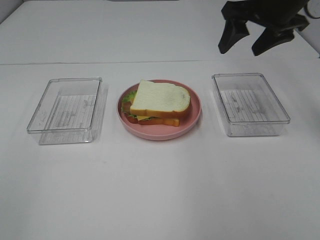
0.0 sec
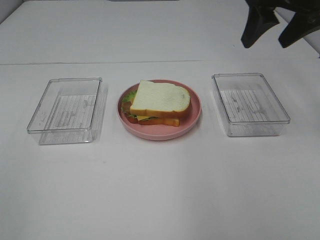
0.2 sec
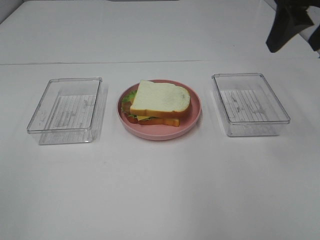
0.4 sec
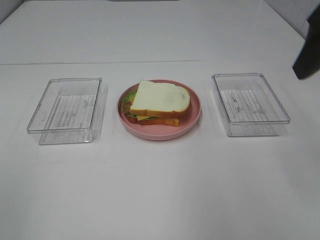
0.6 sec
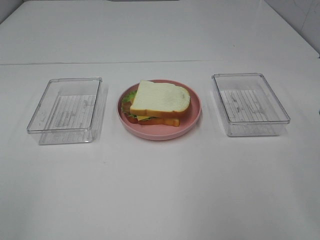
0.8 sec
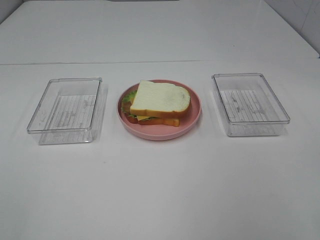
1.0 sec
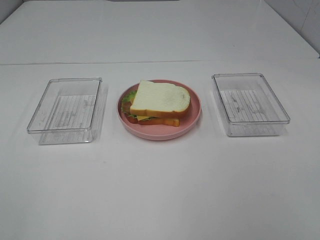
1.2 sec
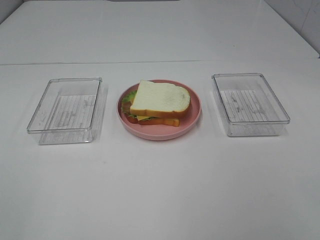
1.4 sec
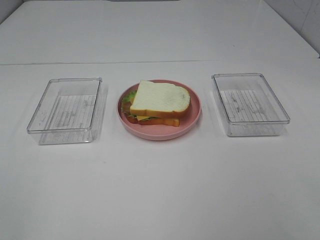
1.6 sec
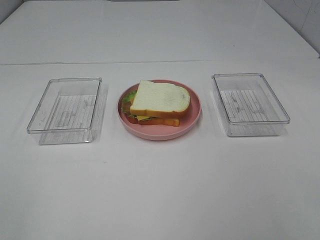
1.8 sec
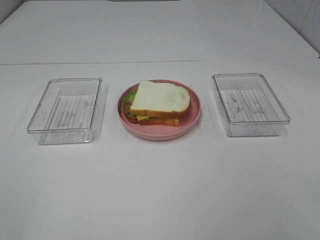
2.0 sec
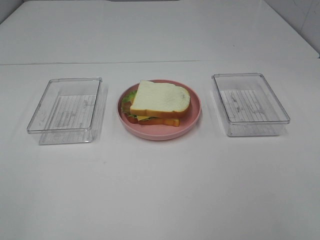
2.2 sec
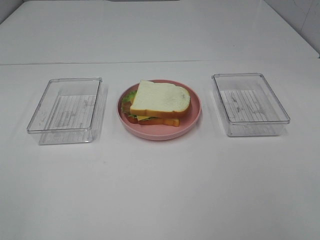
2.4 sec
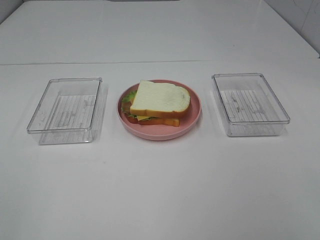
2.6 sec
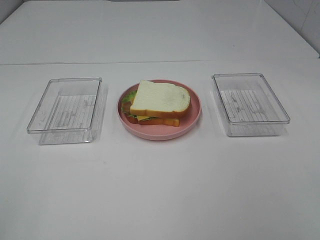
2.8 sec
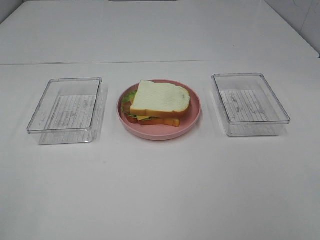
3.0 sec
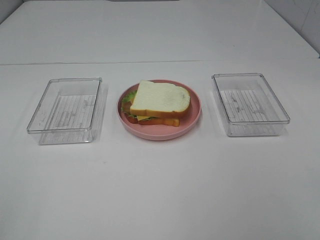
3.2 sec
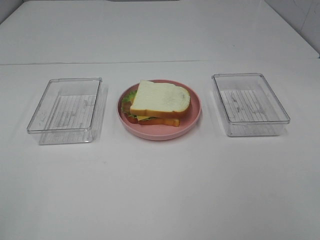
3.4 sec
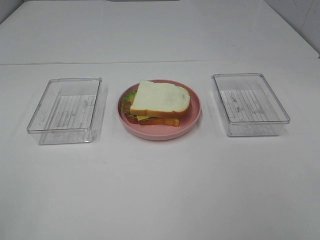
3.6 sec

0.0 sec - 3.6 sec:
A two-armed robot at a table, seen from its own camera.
Task of the whole recording: Make sandwiches.
0.0 sec - 1.8 sec: The right gripper goes about 40 cm backward.

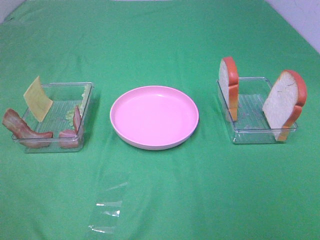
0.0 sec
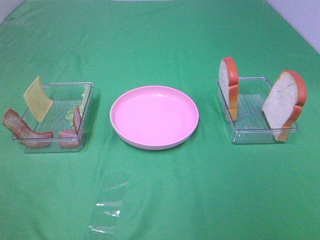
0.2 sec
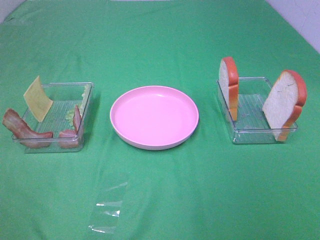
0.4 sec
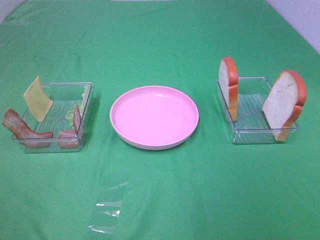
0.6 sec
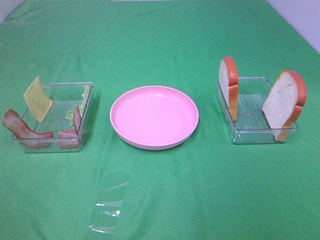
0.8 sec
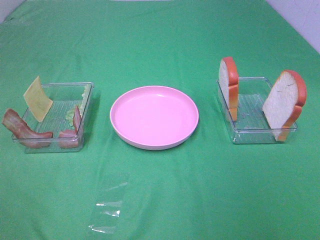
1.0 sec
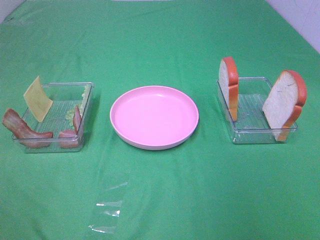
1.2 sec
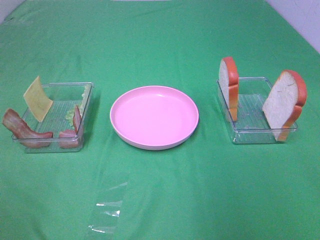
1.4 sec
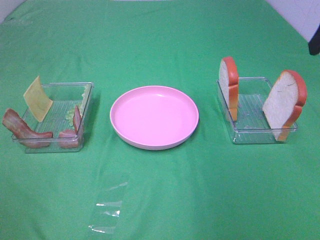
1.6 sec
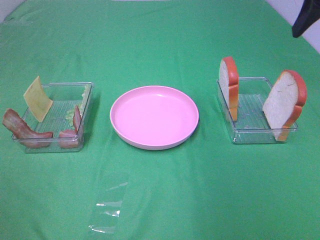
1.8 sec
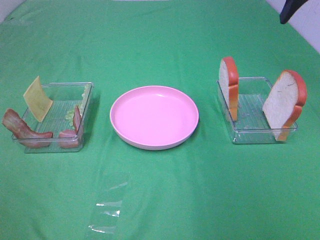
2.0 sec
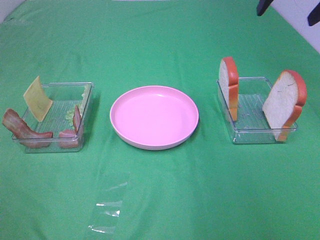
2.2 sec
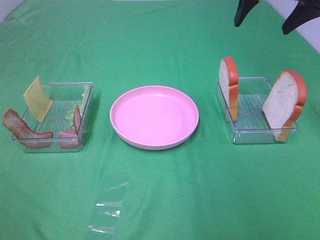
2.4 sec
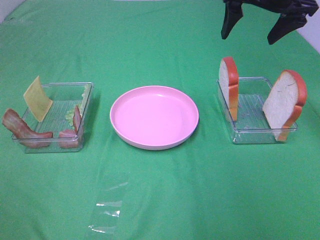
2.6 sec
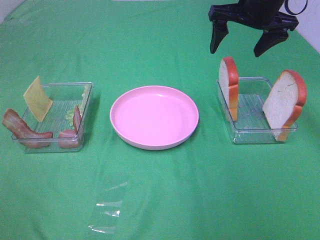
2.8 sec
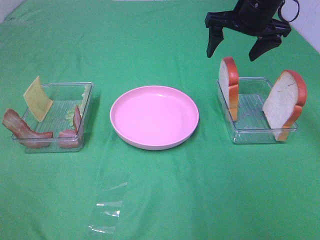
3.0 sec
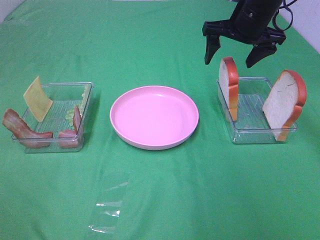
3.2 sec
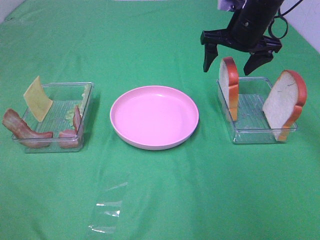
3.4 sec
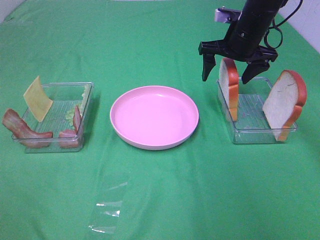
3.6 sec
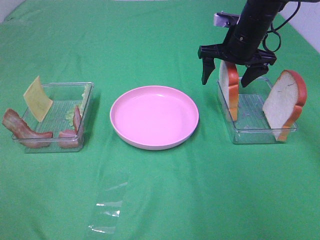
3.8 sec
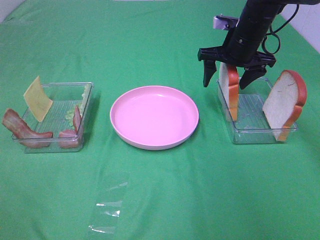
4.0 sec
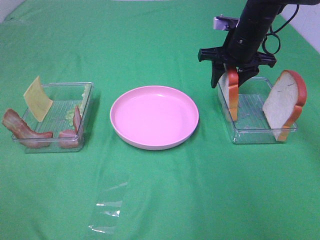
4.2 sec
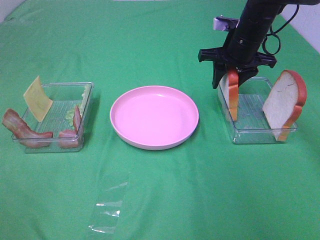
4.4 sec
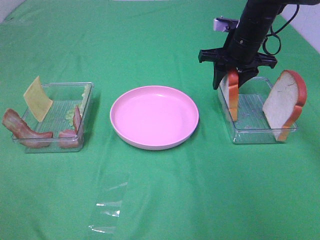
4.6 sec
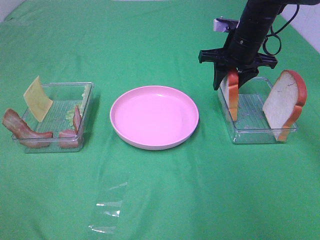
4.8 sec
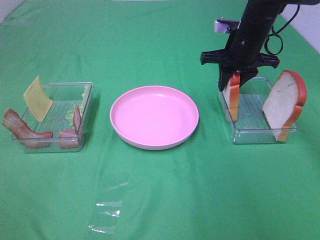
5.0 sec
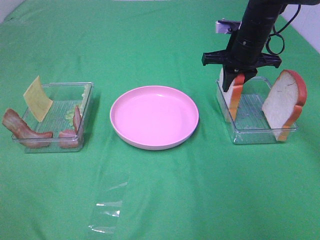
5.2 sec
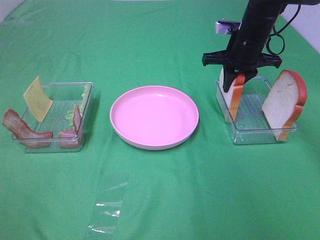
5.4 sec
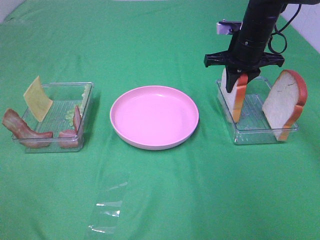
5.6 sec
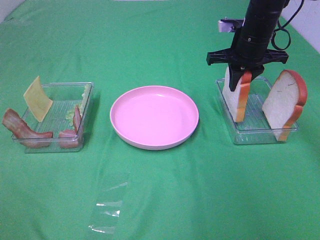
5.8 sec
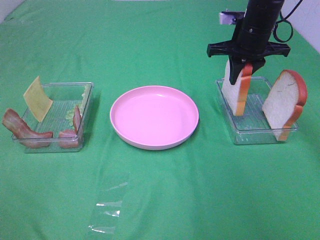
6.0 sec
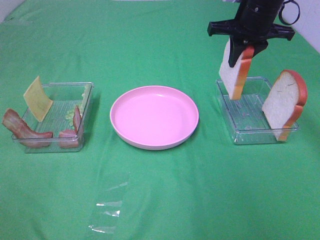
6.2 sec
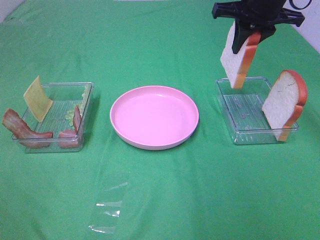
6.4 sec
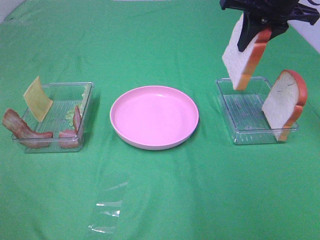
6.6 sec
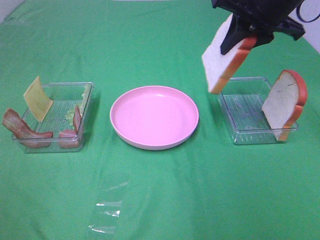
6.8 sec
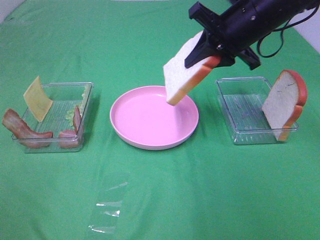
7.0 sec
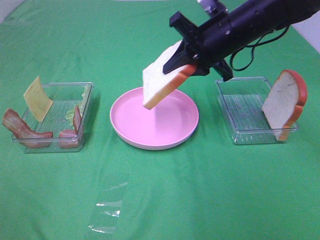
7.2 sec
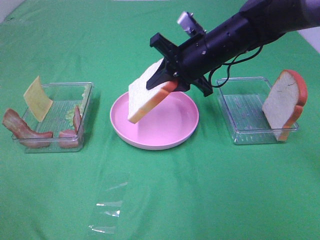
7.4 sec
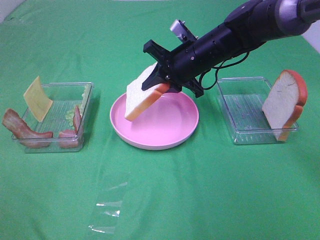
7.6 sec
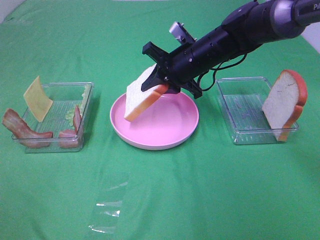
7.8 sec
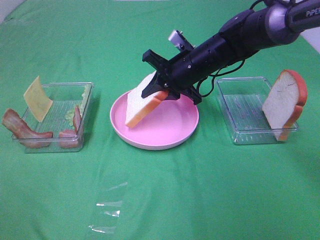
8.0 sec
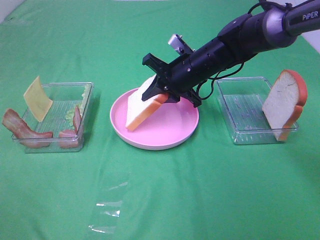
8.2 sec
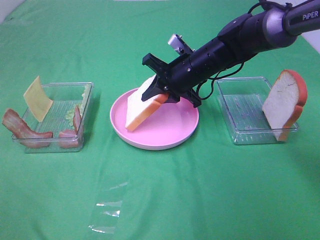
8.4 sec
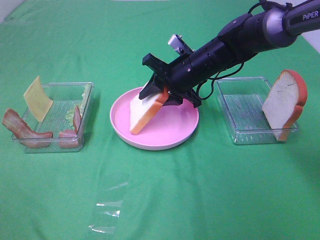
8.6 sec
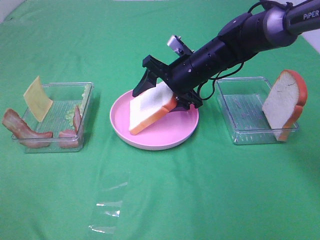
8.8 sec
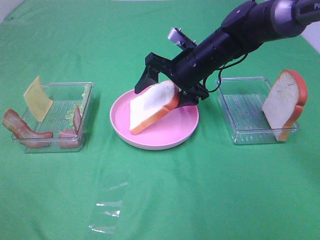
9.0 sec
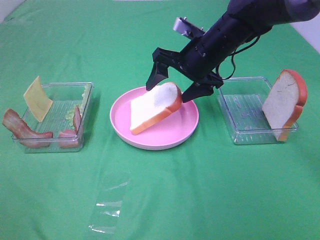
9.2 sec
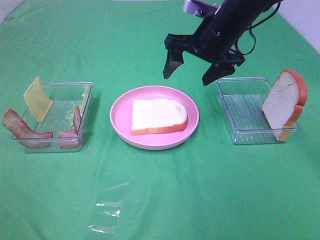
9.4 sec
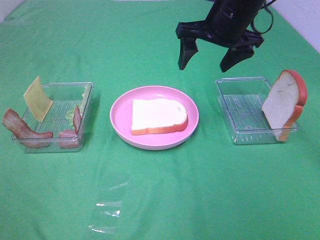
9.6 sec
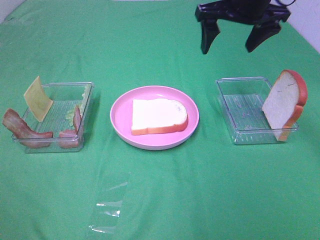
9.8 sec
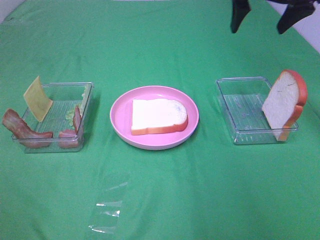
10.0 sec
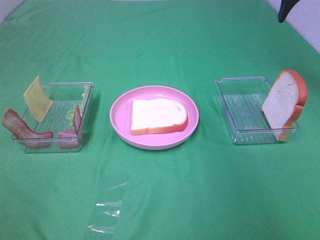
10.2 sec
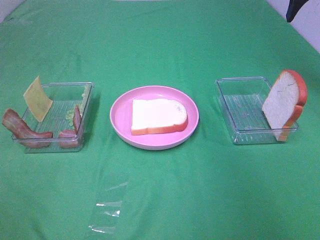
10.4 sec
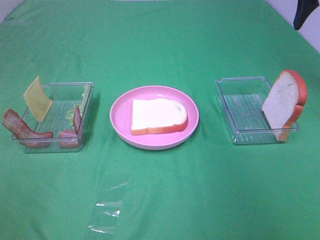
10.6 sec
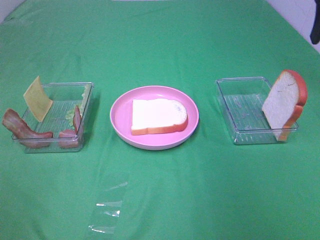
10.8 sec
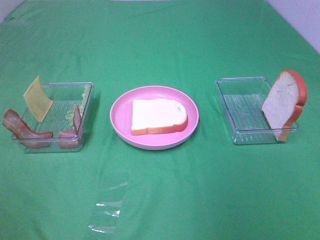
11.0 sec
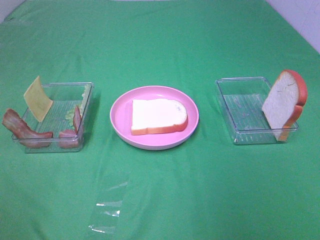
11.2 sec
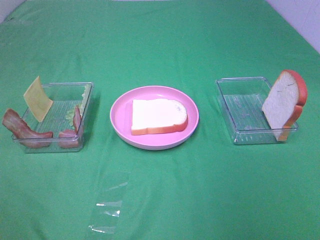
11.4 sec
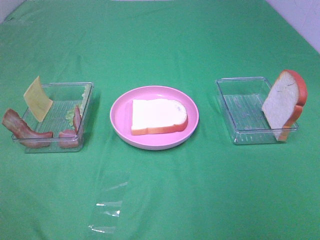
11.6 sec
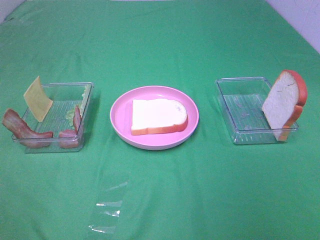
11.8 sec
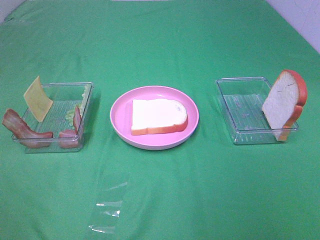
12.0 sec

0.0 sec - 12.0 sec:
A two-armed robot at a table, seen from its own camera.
Task of the whole recording: Make sandwiches.
Step, 0.0 sec - 5.4 sec: Right hand:grab the bread slice.
Step, 5.6 sec - 9.2 sec: Right hand:place the bread slice on the plate.
1.6 sec - 3.0 sec: The right gripper is displaced forward, downward and to the left by about 25 cm.
3.0 sec - 4.4 sec: The right gripper is displaced downward by approximately 5 cm, and closes.
4.4 sec - 6.0 sec: The right gripper closes its fingers.
6.0 sec - 7.6 sec: The right gripper moves to the left, some 10 cm, and moves approximately 10 cm upward and comes back.
7.6 sec - 9.0 sec: The right gripper opens.
9.0 sec - 10.4 sec: The right gripper goes approximately 30 cm to the right and upward.

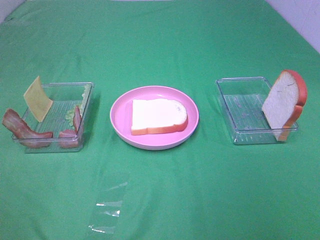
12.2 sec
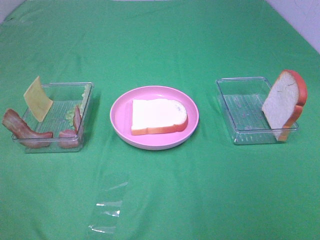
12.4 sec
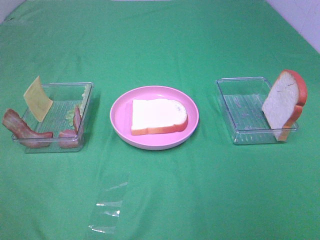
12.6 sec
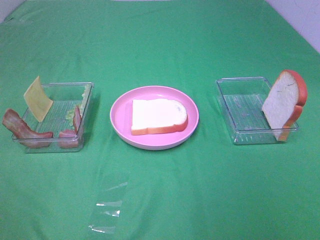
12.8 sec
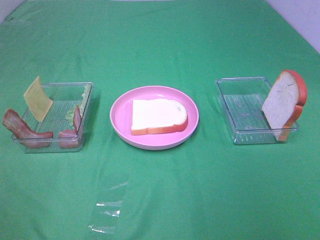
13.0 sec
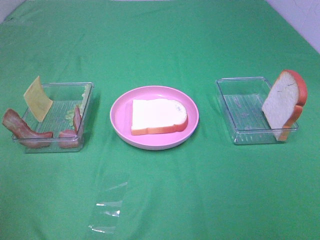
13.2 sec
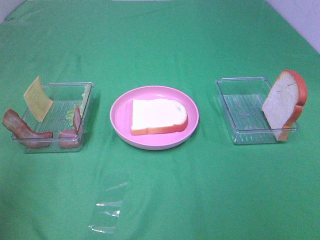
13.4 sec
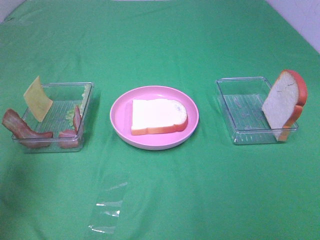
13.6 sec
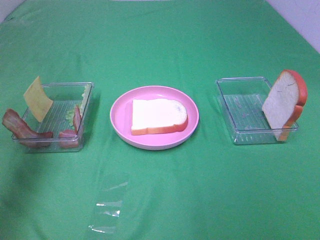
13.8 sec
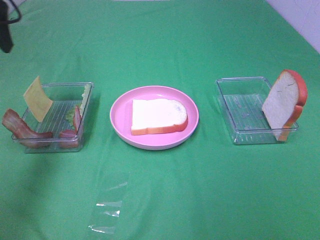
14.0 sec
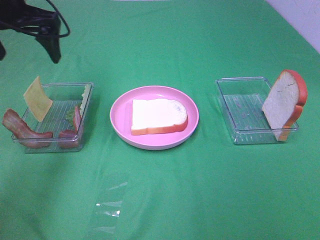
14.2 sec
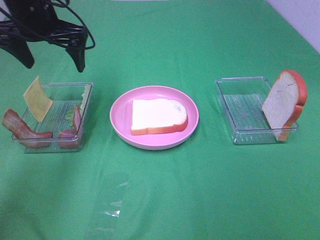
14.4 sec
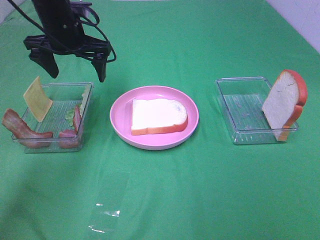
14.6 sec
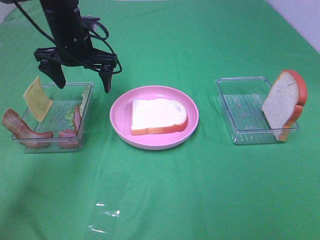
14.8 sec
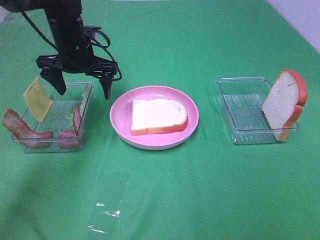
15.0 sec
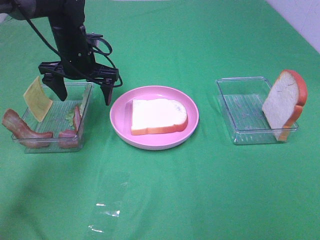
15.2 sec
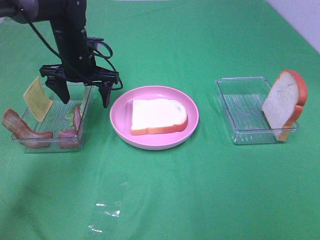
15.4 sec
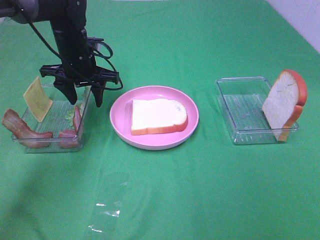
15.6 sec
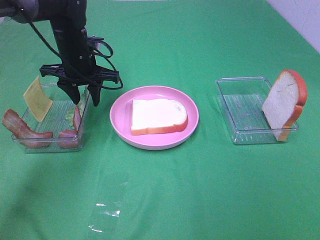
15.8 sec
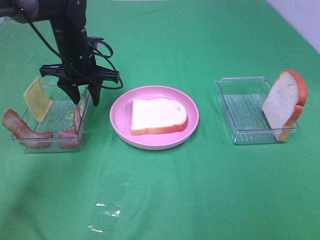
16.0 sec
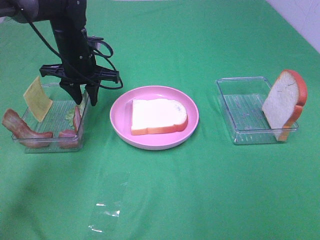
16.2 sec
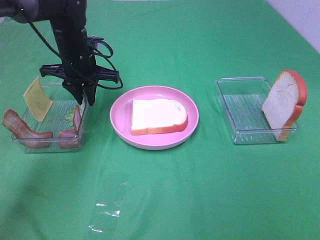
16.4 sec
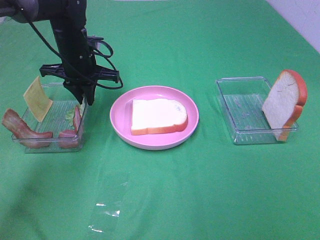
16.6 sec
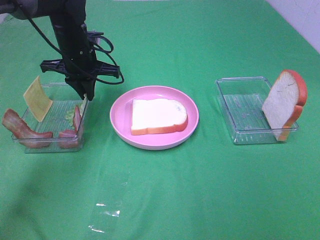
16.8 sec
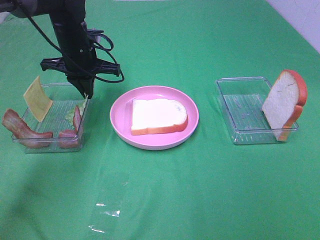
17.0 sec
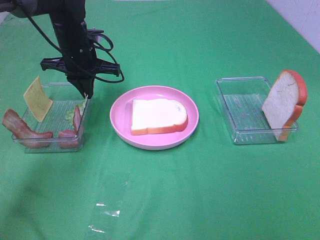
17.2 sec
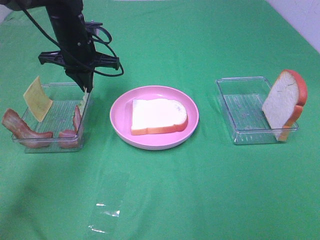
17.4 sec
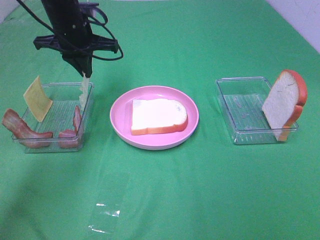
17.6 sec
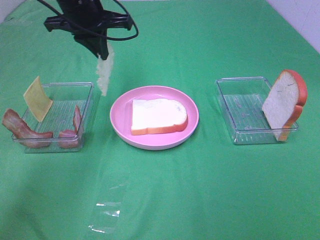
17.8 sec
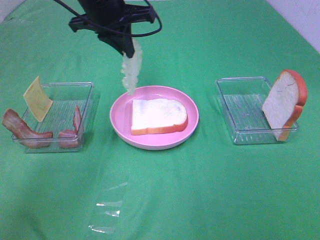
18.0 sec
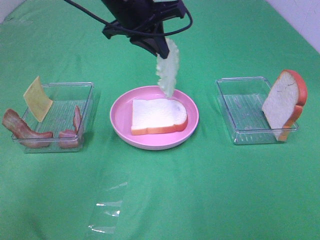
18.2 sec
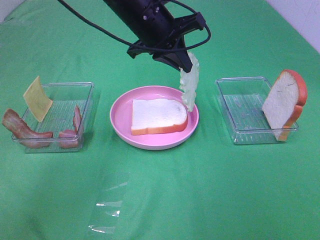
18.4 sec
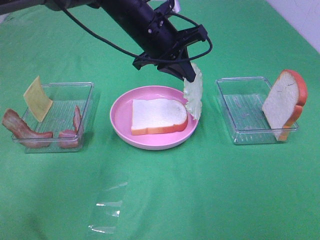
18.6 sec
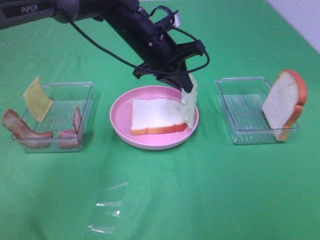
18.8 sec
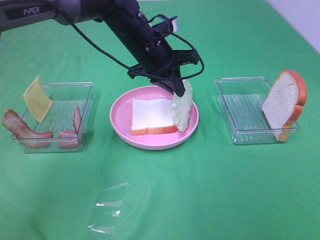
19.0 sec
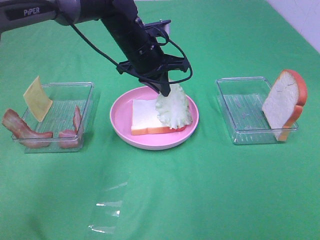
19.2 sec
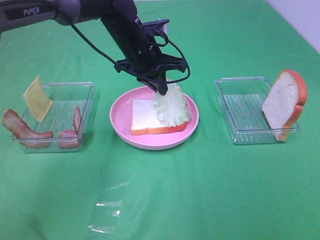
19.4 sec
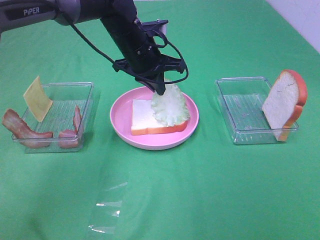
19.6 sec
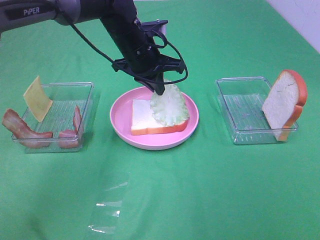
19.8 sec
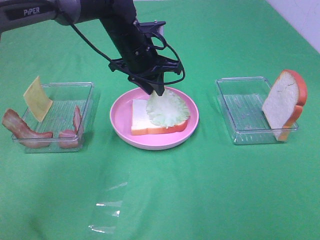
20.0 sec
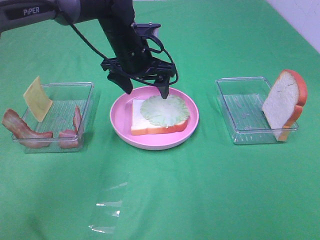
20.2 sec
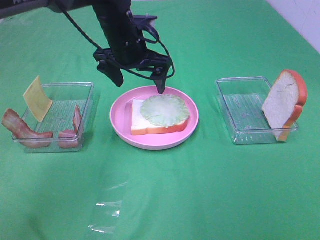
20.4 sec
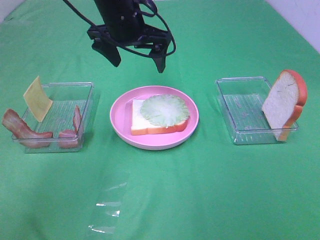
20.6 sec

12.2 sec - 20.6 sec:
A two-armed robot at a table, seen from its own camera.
Task of the whole recording: Make sandwiches.
Step, 12.2 sec - 17.0 sec: Left hand:grab the lettuce slice.
Step, 17.2 sec - 20.2 sec: Left hand:place the lettuce slice on the bread slice.
12.2 sec - 13.6 sec: The left gripper goes roughly 20 cm forward.
13.6 sec - 15.0 sec: The left gripper goes about 35 cm forward, downward and to the right.
15.0 sec - 16.4 sec: The left gripper closes.
16.4 sec - 17.8 sec: The left gripper travels upward by about 10 cm.
17.8 sec - 19.2 sec: The left gripper travels to the right and downward by about 10 cm.
19.2 sec - 20.6 sec: The left gripper moves upward, some 5 cm, and opens.
